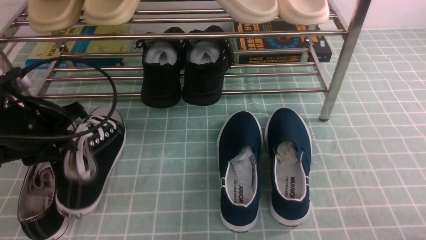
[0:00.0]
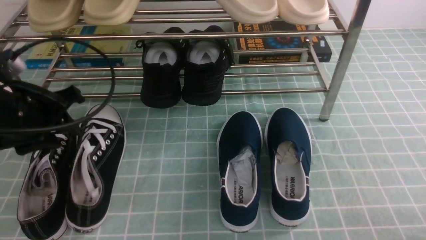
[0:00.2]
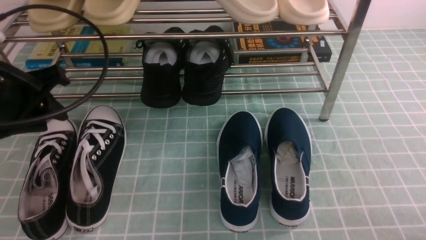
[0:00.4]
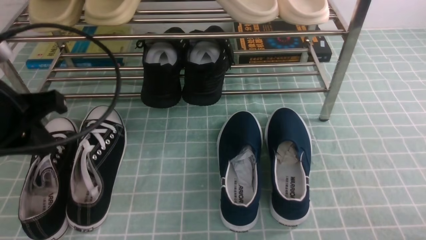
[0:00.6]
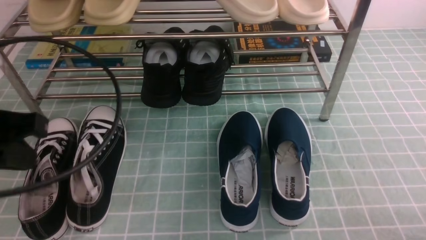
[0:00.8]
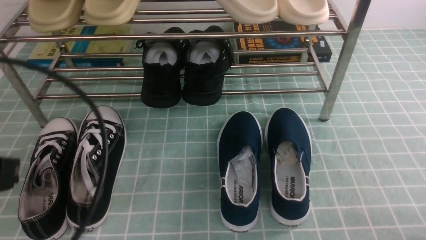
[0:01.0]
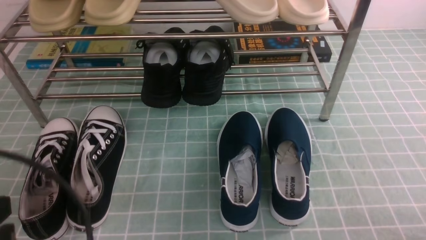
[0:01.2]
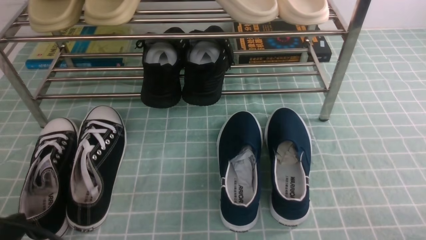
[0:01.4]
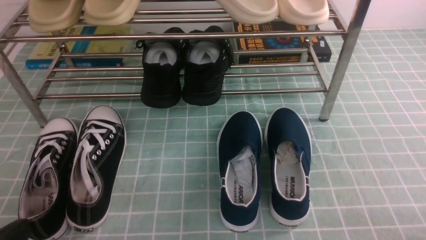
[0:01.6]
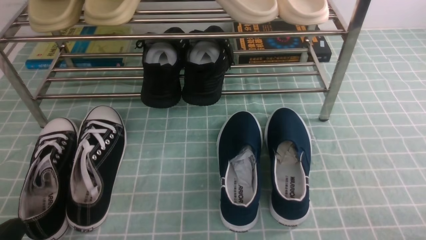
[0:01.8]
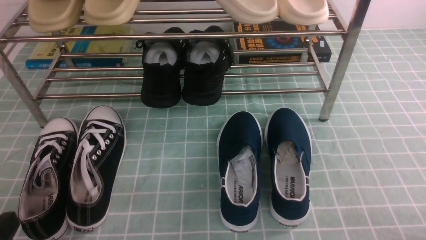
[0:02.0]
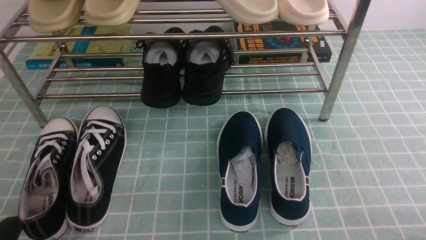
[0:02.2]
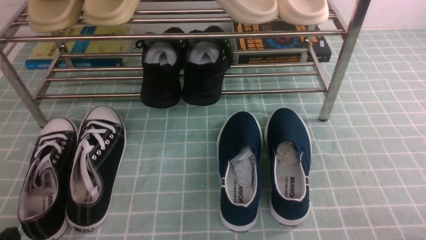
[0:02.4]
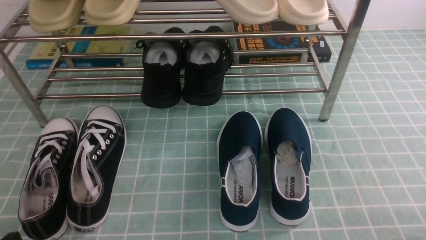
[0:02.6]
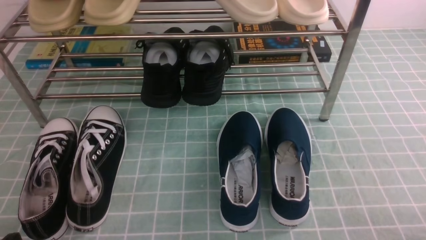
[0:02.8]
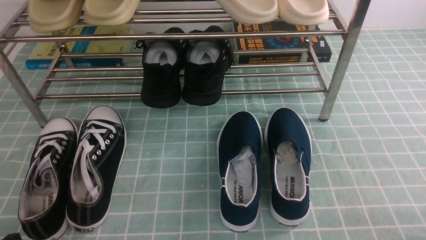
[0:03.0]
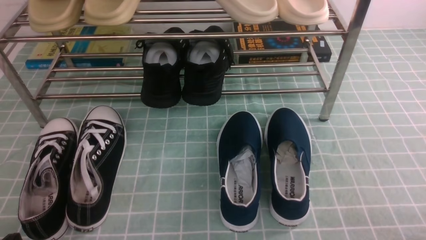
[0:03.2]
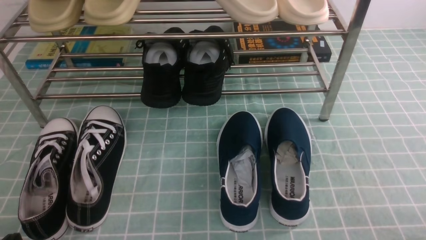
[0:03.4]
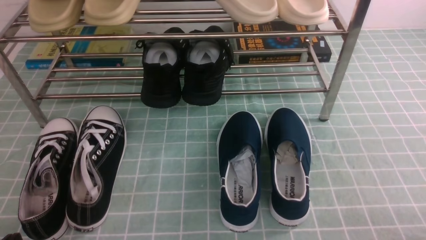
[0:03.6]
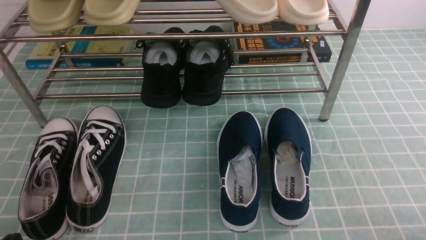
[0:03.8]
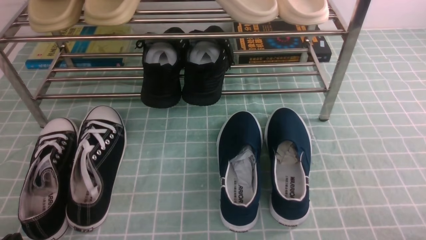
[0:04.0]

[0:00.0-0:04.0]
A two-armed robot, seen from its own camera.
0:00.0 to 0:01.4: The left gripper moves backward, some 20 cm, and closes its fingers.
0:01.4 to 0:02.6: The left gripper heads downward, covering some 10 cm.
0:02.6 to 0:04.0: Both grippers stay put.
